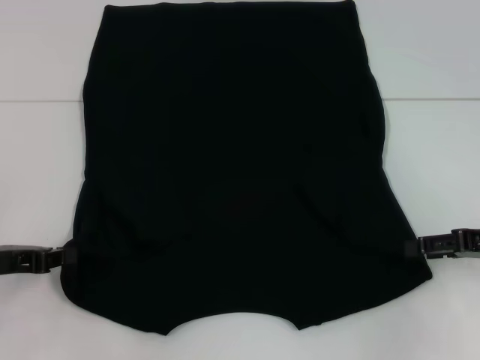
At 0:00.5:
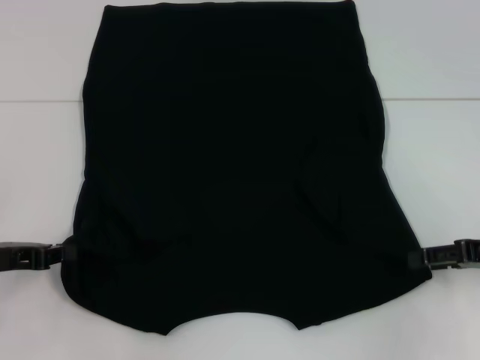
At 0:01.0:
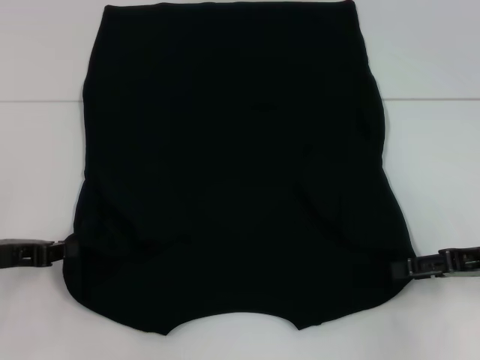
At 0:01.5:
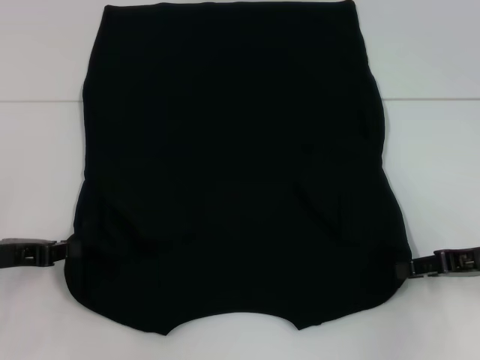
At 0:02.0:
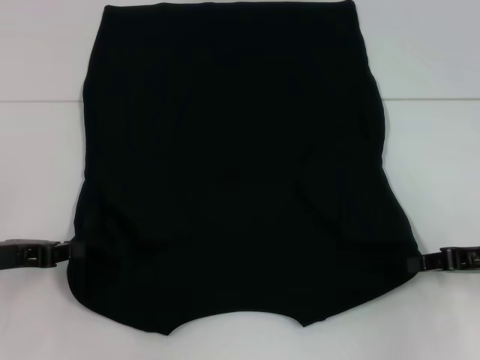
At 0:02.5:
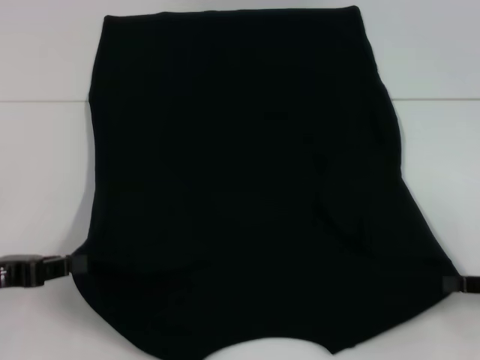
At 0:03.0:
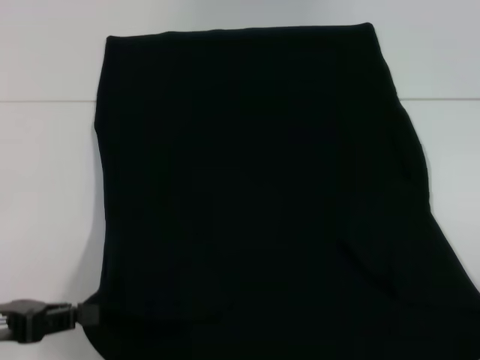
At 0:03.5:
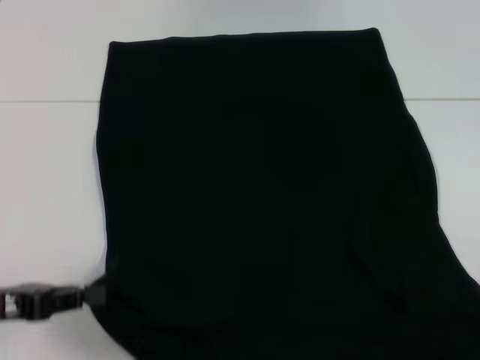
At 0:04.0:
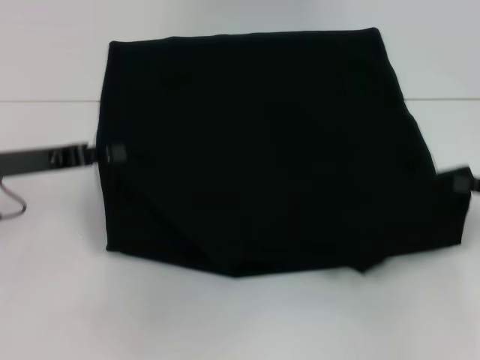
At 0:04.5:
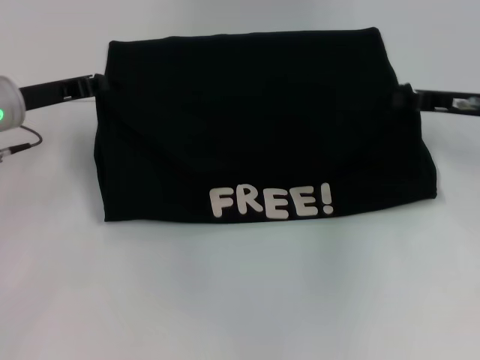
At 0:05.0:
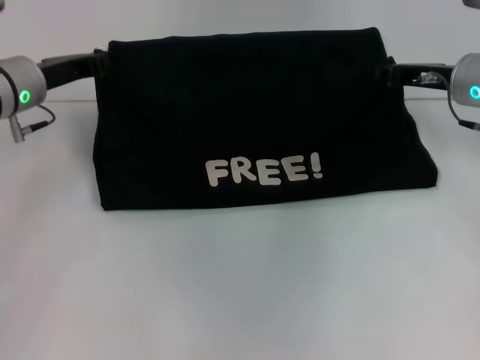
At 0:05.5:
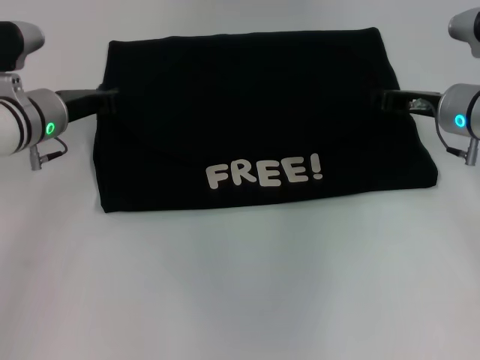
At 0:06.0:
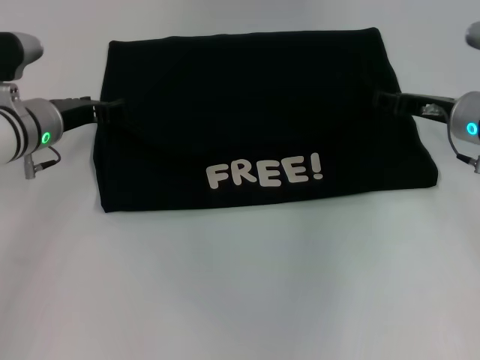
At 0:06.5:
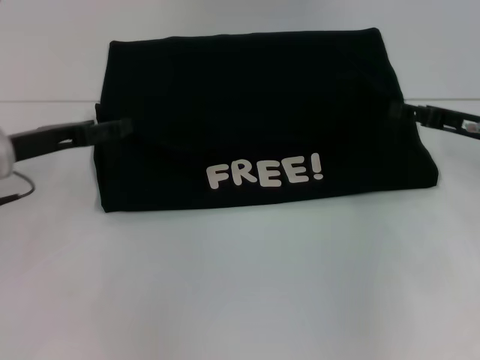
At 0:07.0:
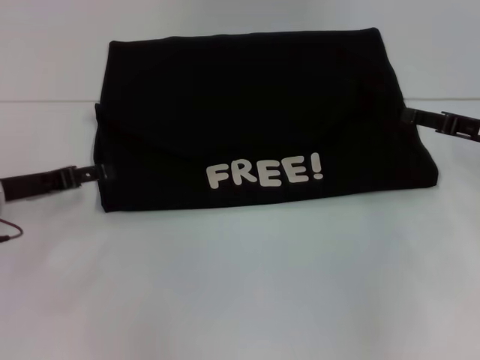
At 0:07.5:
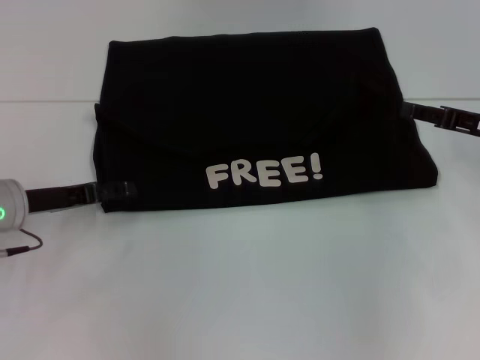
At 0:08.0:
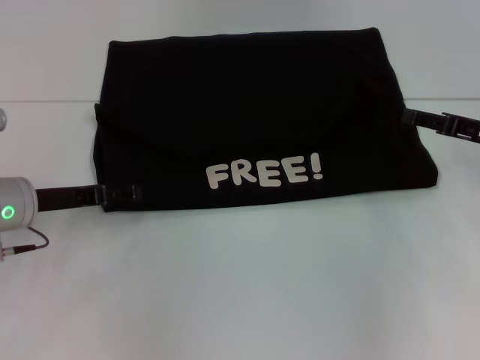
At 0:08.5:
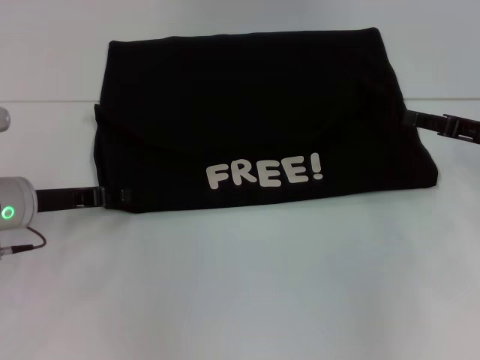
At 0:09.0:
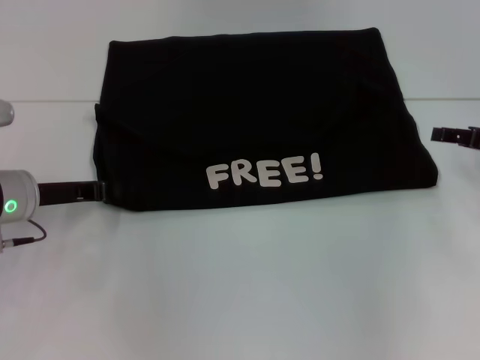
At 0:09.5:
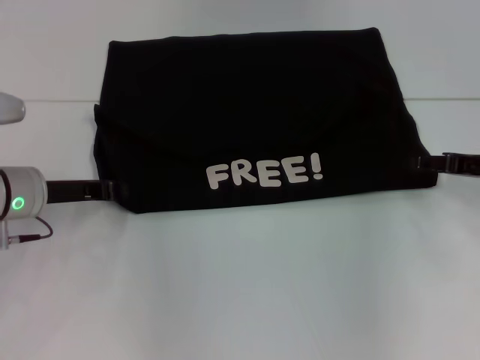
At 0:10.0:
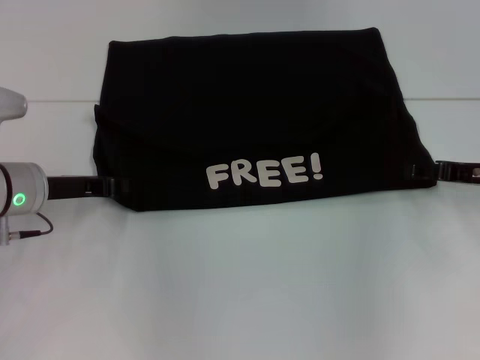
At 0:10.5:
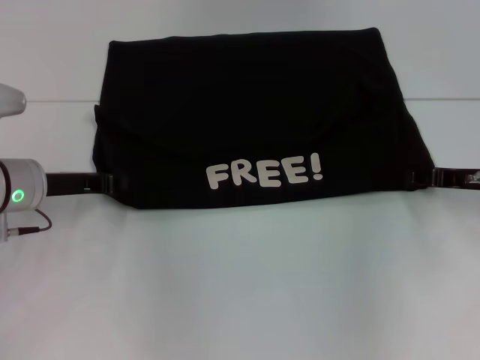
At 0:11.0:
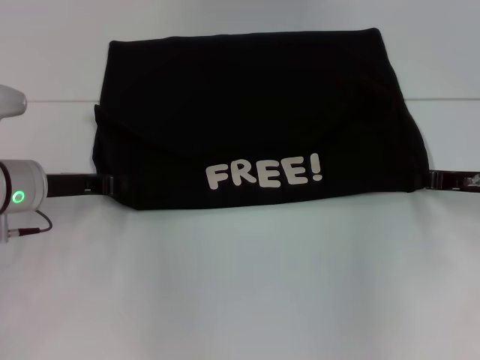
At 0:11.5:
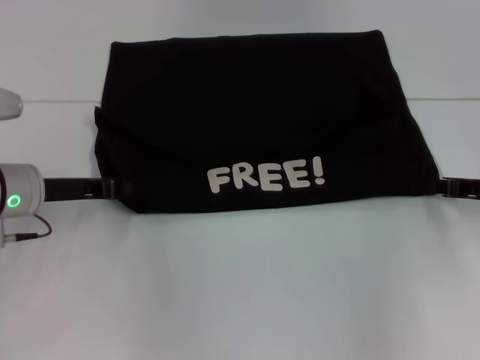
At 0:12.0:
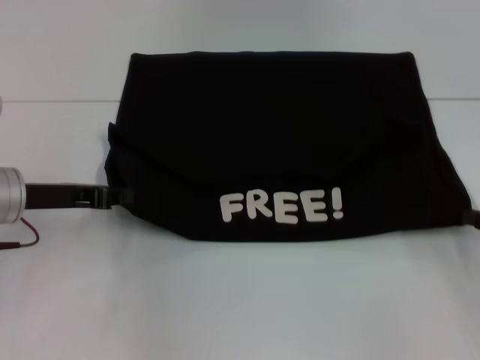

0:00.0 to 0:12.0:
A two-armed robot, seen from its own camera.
Step, 0:00.0 to 0:02.0: Grab the bottom left corner with your left hand.
Step, 0:00.0 to 0:02.0: Grab the bottom right corner with your right hand.
Step, 0:02.5 to 0:05.5: Fold the clothes with your left hand.
Step, 0:02.5 to 0:05.5: Fold the clothes with your right hand.
0:00.0 to 0:02.0: The right gripper closes its fingers.
0:02.0 to 0:04.0: The right gripper moves about 10 cm backward and comes back. The left gripper heads forward, covering approximately 5 cm.
0:04.0 to 0:06.0: The left gripper is displaced forward and to the right by approximately 10 cm, and opens up. The right gripper travels to the left and forward by approximately 15 cm, and opens up.
0:06.0 to 0:08.0: The left gripper goes some 10 cm backward, and opens its fingers. Meanwhile the right gripper is displaced to the right by approximately 5 cm.
0:08.0 to 0:10.0: The left gripper closes its fingers.
0:10.0 to 0:12.0: The right gripper is displaced backward and to the right by roughly 10 cm, and closes.

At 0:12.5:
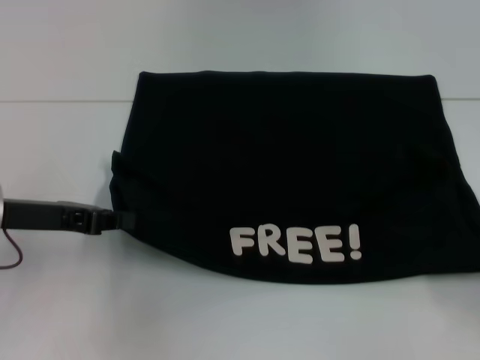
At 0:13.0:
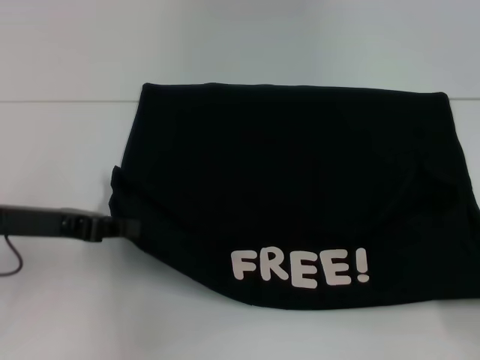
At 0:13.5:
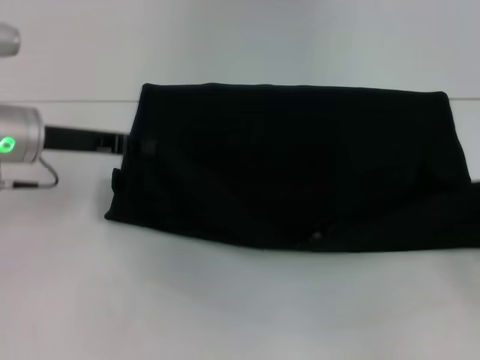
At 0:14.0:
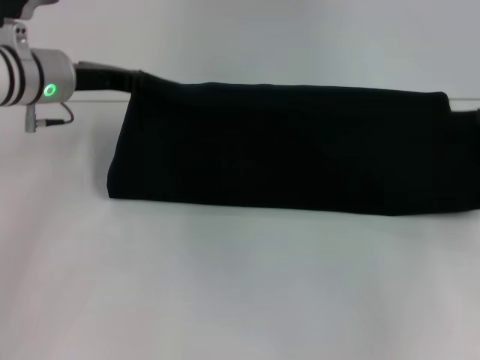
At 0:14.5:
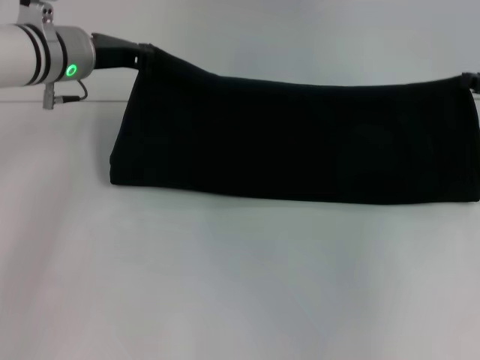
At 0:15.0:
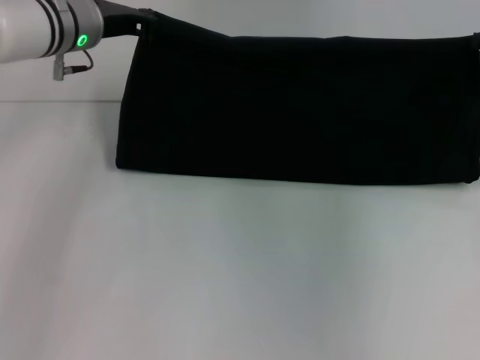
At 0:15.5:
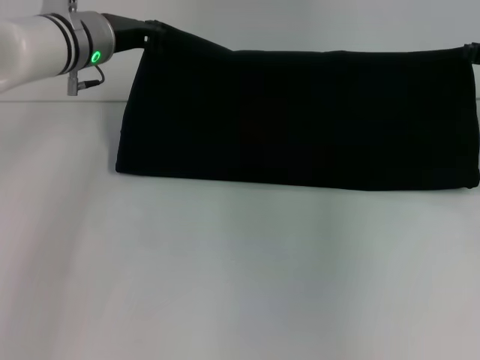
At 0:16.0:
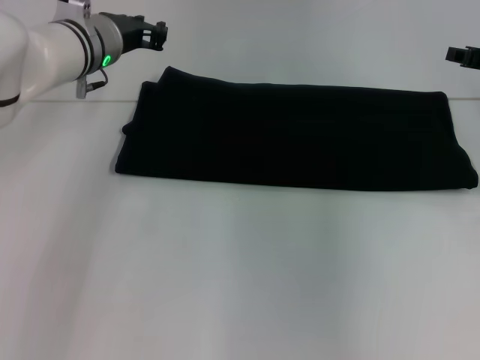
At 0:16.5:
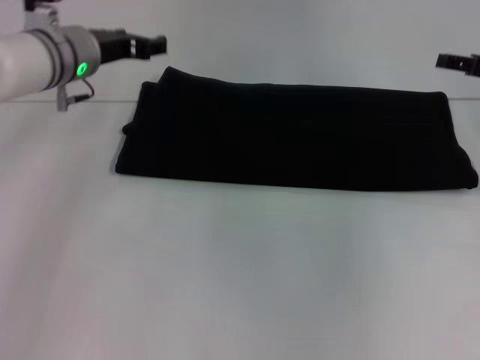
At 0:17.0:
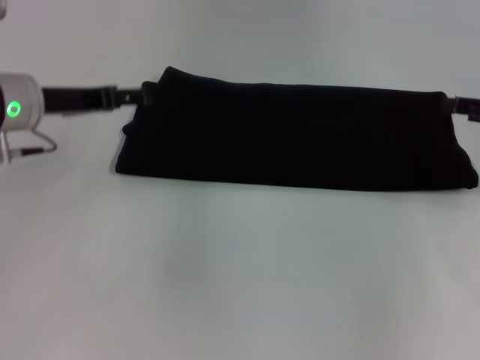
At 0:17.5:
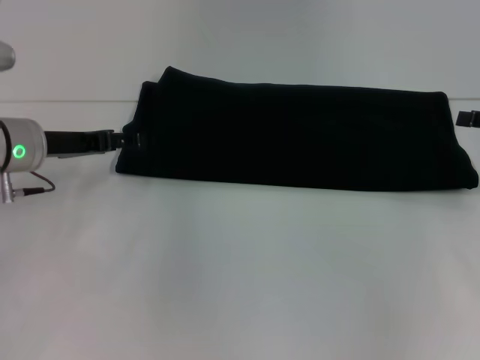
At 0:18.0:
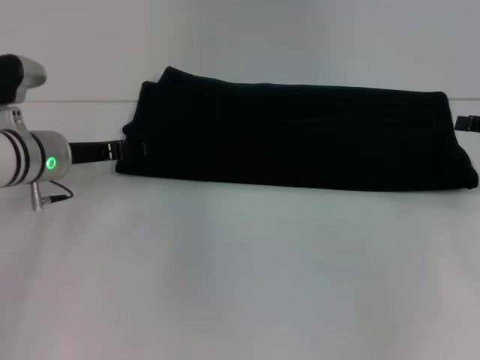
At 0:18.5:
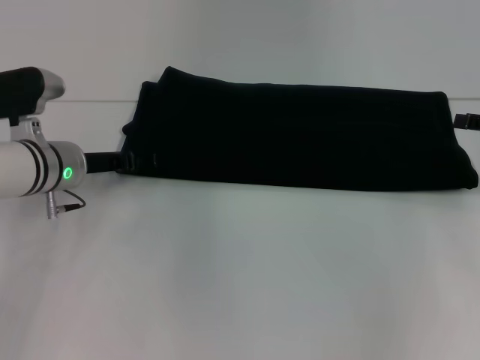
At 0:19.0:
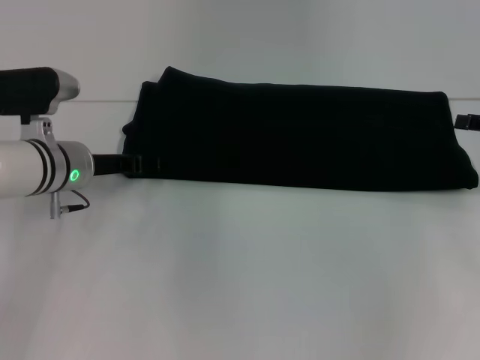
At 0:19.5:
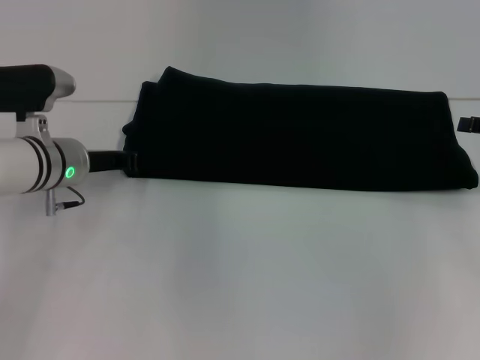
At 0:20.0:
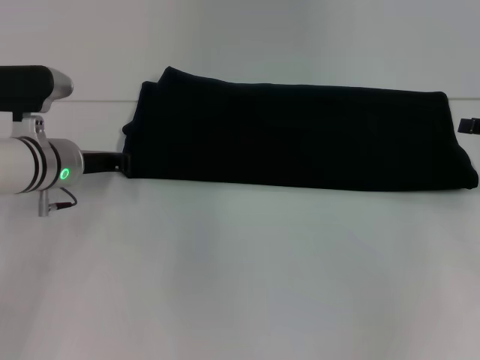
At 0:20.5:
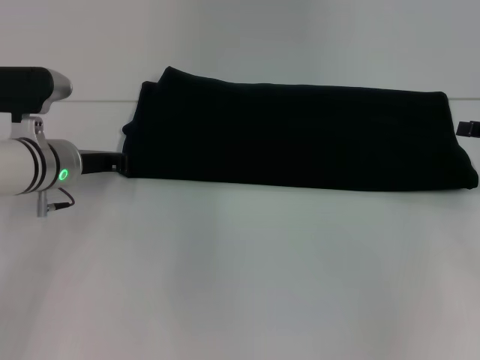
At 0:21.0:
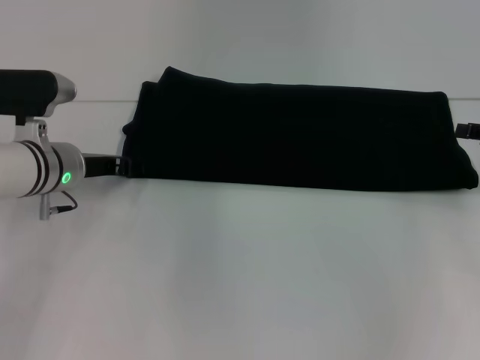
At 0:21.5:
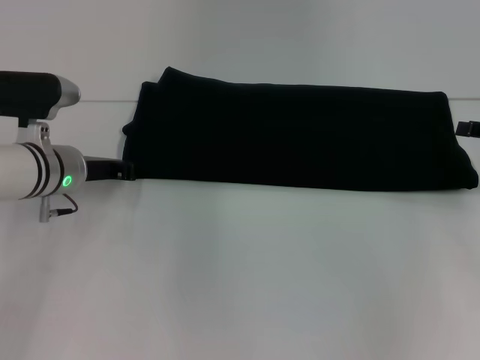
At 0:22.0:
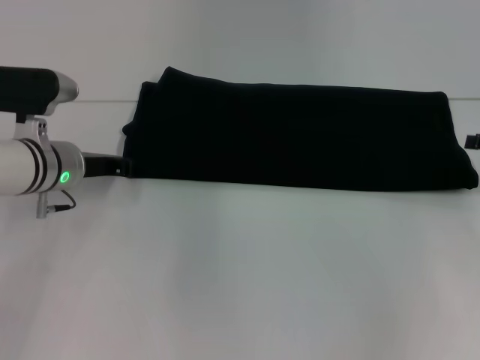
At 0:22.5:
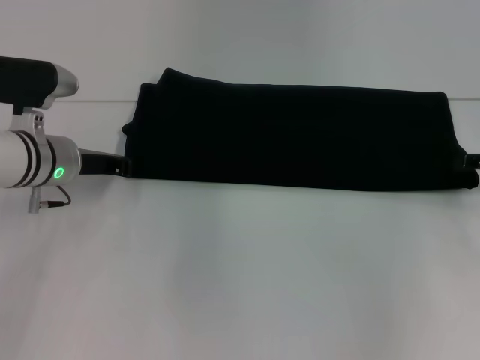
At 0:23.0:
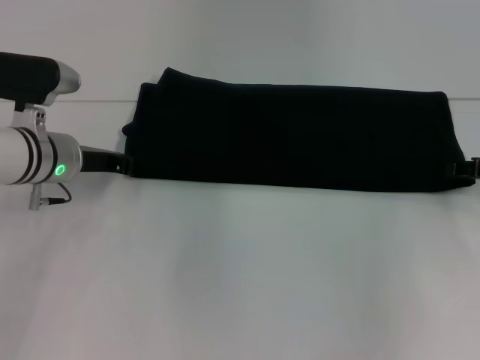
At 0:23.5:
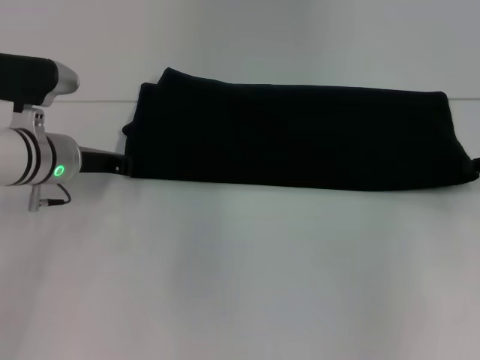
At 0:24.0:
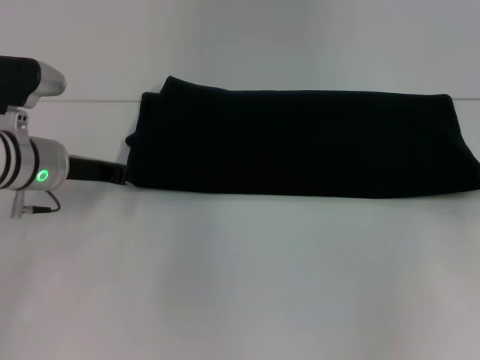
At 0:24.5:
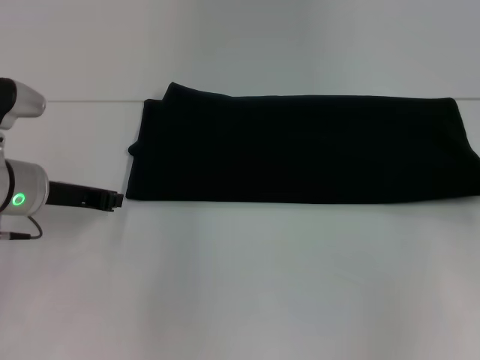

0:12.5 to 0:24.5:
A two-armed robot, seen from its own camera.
Step, 0:13.0 to 0:16.5: Fold the clothes with your right hand.
0:12.5 to 0:14.5: The right gripper heads forward and upward, covering approximately 20 cm, while the left gripper moves forward and to the right, approximately 15 cm.
0:14.5 to 0:16.5: The left gripper opens up, while the right gripper opens.
0:16.5 to 0:18.5: The left gripper is displaced downward and backward by about 10 cm. The right gripper goes approximately 5 cm backward.
0:18.5 to 0:20.5: The left gripper closes up.
0:20.5 to 0:22.5: The left gripper opens, then closes once more.
0:22.5 to 0:24.5: The right gripper closes up.

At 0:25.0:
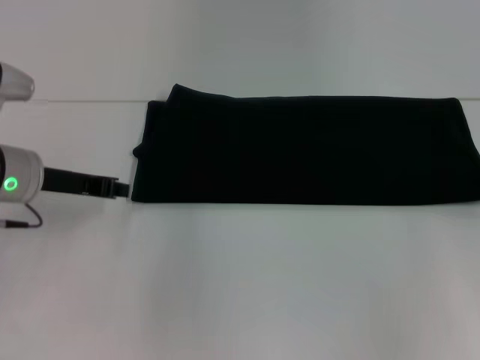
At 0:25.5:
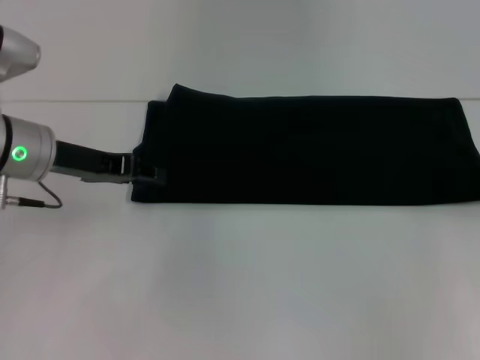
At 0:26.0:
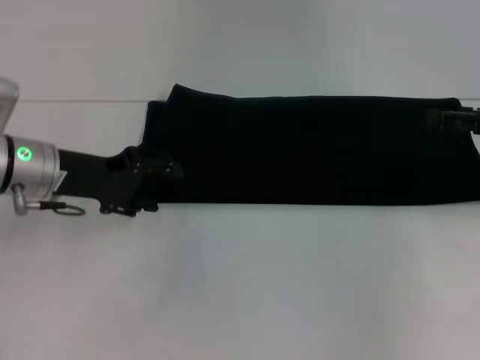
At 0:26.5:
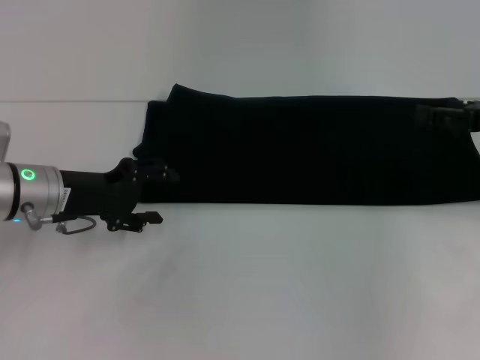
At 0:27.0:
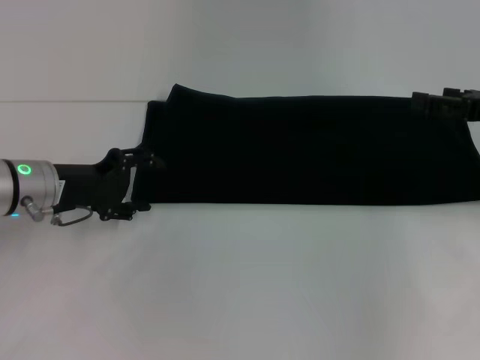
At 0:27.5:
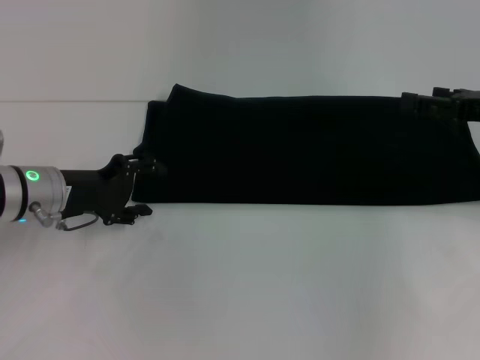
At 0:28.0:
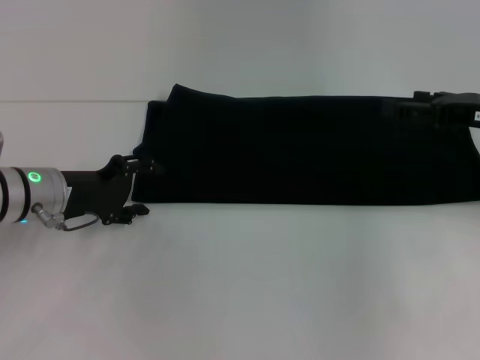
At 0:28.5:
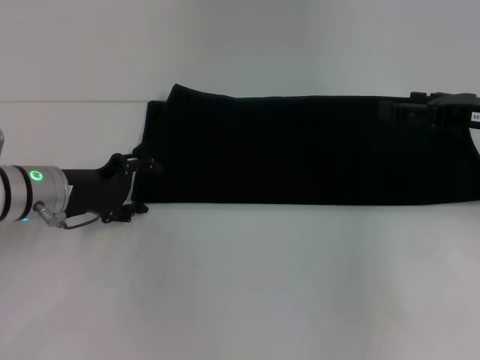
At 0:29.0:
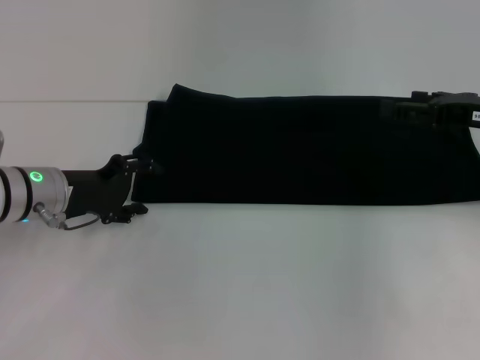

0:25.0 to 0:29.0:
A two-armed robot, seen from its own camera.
0:25.0 to 0:27.0: The left gripper opens.
0:27.0 to 0:29.0: There are only small adjustments of the grippers.
